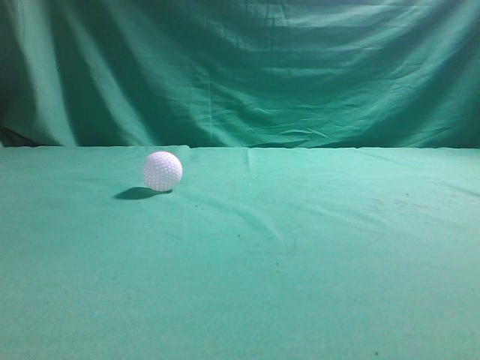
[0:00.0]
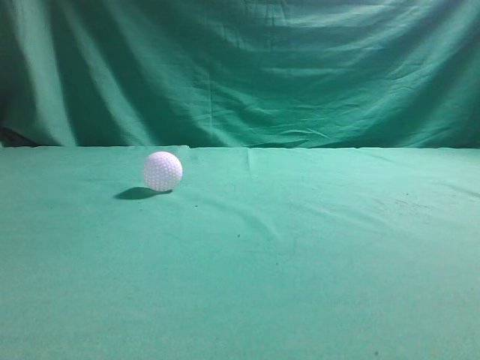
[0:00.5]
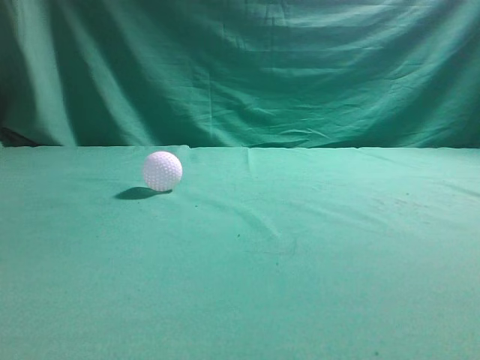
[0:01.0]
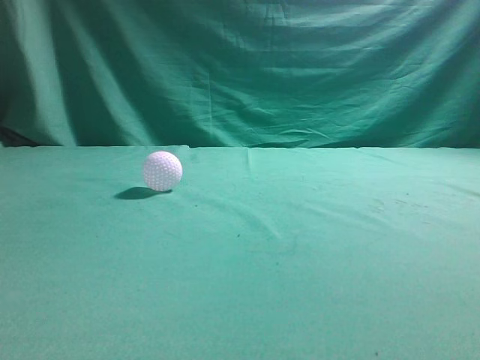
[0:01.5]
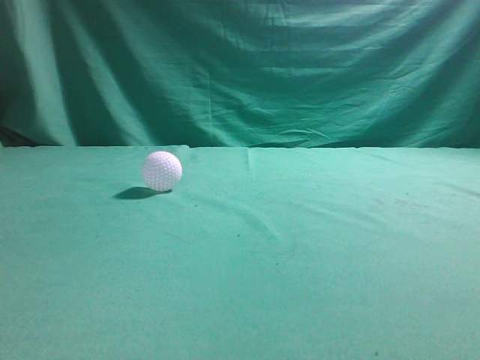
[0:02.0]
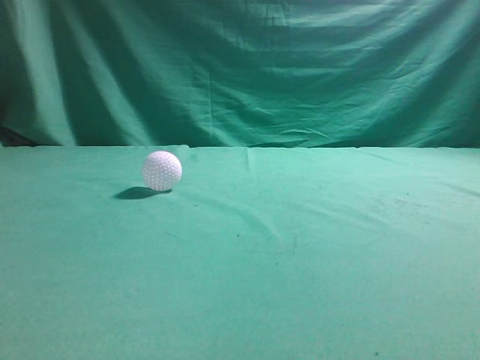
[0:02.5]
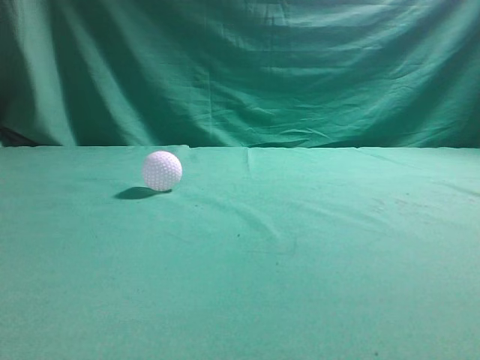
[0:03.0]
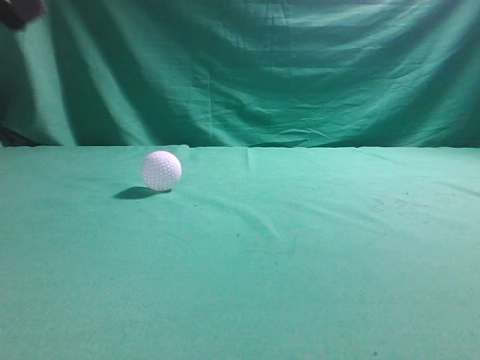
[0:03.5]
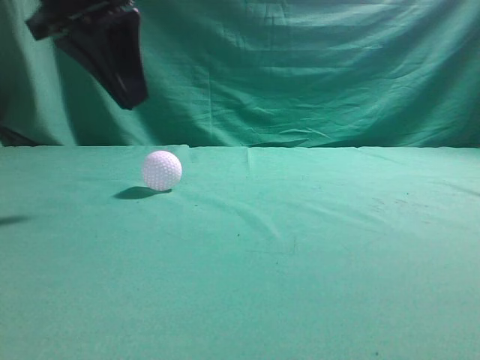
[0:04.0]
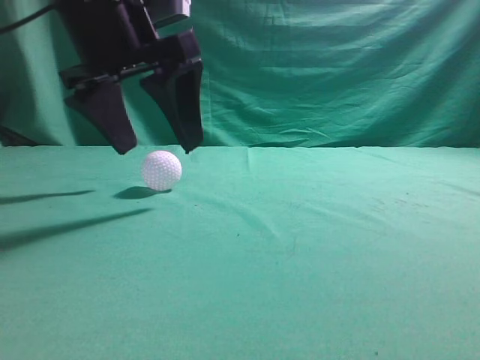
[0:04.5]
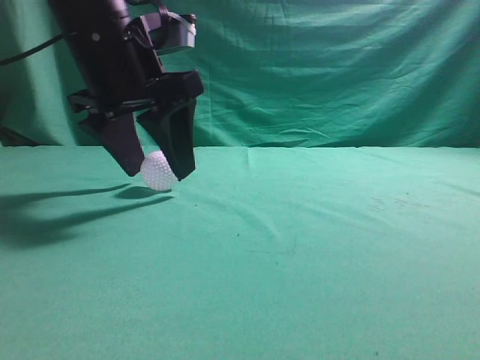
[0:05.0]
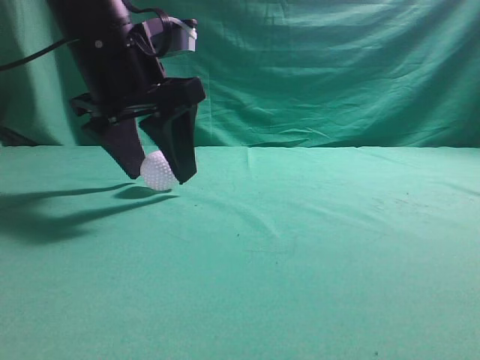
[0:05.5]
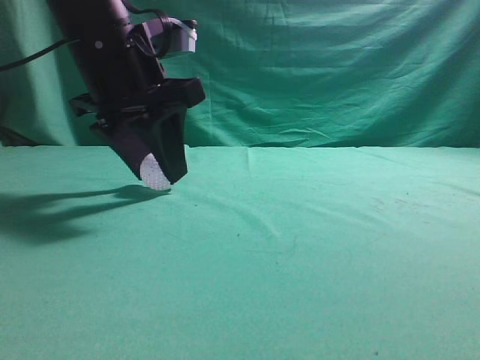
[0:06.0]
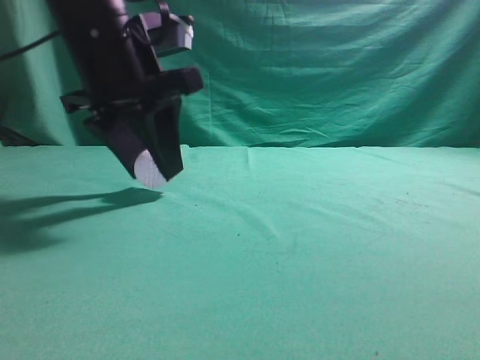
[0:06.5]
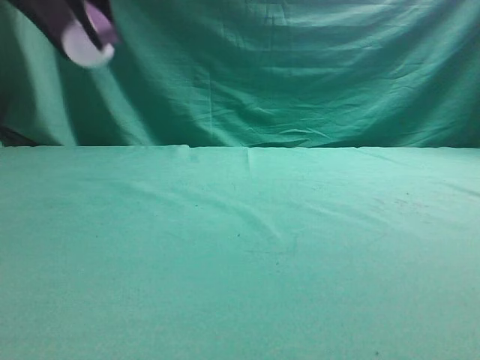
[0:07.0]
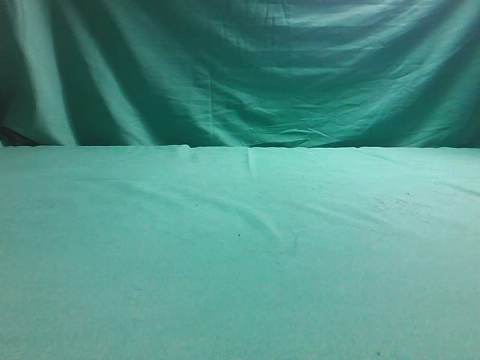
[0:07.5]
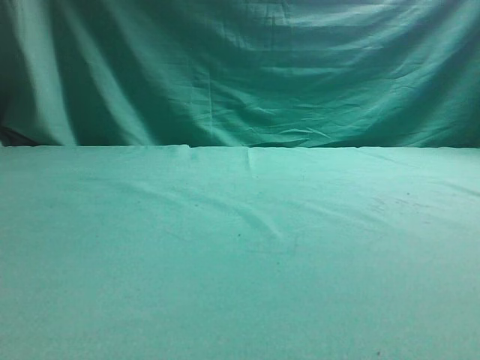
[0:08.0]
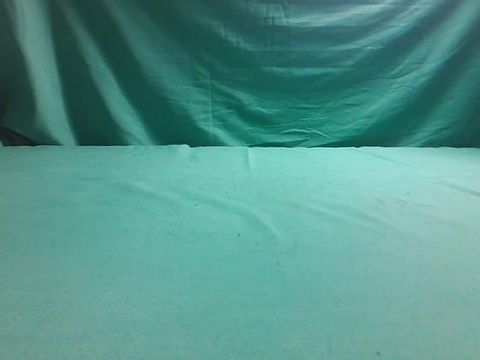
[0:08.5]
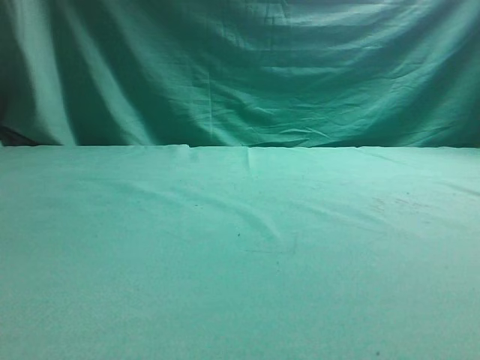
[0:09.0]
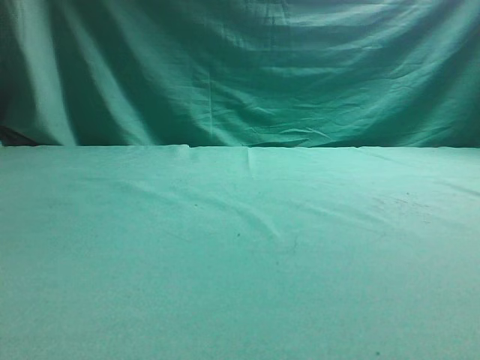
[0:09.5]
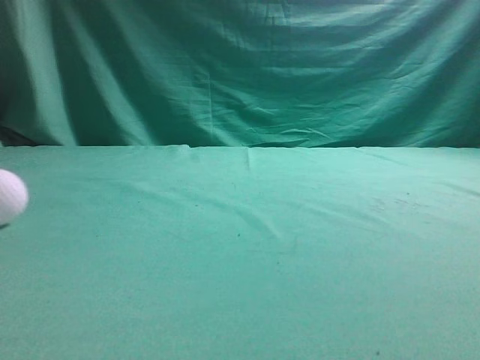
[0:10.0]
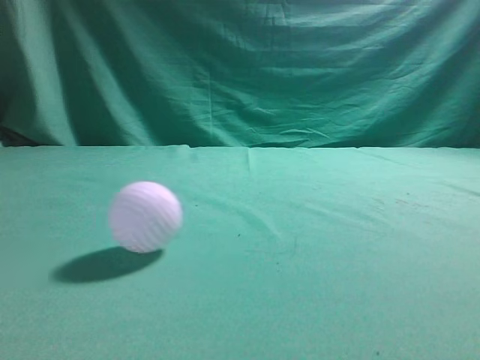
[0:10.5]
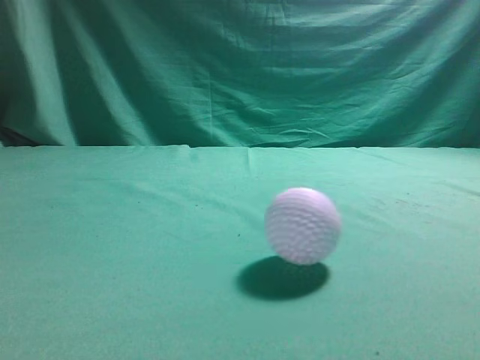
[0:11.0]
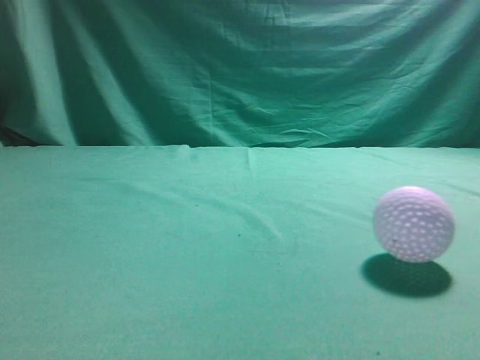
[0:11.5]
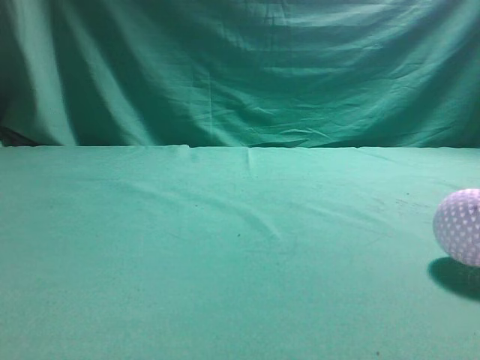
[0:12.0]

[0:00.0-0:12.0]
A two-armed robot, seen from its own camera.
Task of the whole recording: pick up the ball and place it on the plate, then pick up the ball from the plate and put it in the center of the table.
Step, 0:00.0 to 0:06.5: Grab the spherical object with your left arm.
Step, 0:07.0 to 0:09.0: Place the sphere on the white object.
0:02.0 to 0:04.0: The left gripper shifts some 30 cm forward and to the right.
0:04.0 to 0:06.0: The left gripper goes approximately 5 cm downward, and opens.
0:06.0 to 0:08.0: The right gripper shifts some 10 cm upward; the left gripper shifts approximately 25 cm to the left and upward.

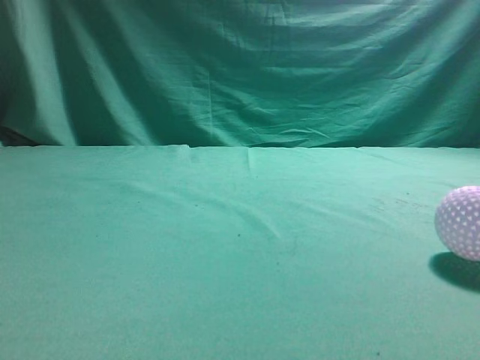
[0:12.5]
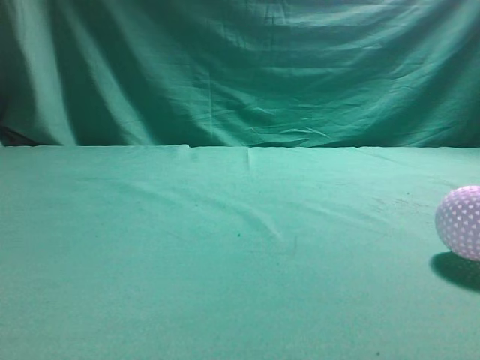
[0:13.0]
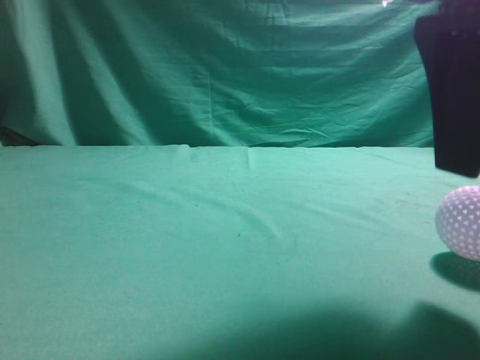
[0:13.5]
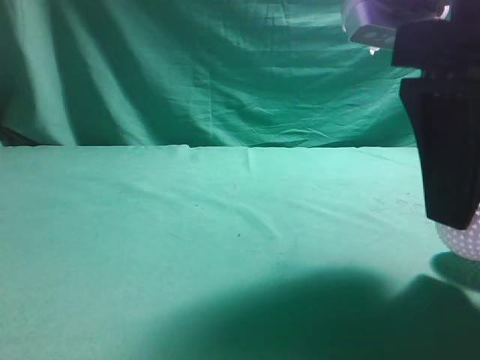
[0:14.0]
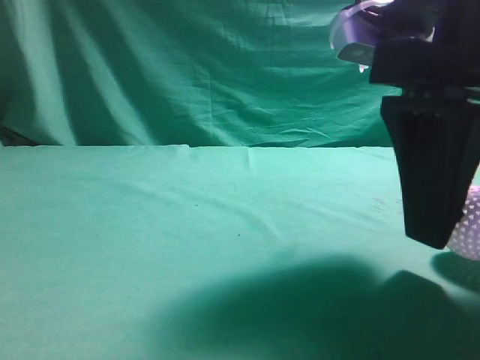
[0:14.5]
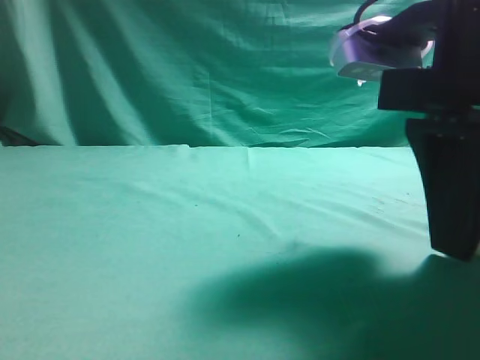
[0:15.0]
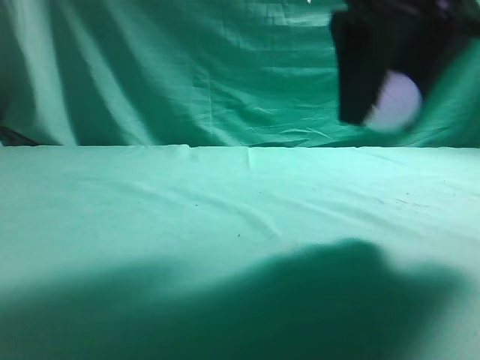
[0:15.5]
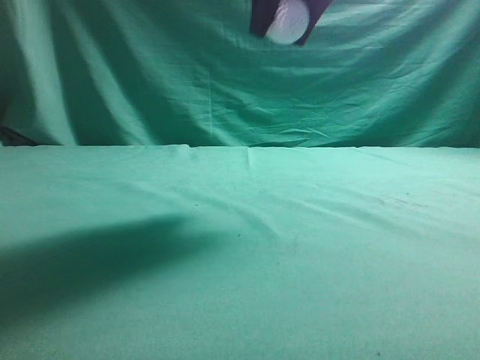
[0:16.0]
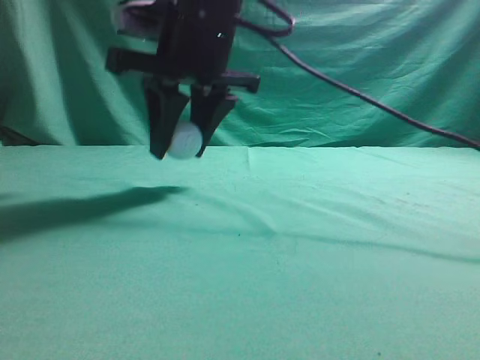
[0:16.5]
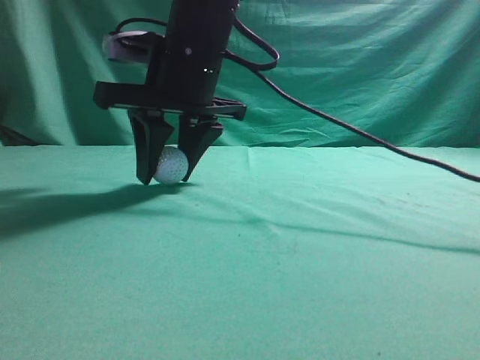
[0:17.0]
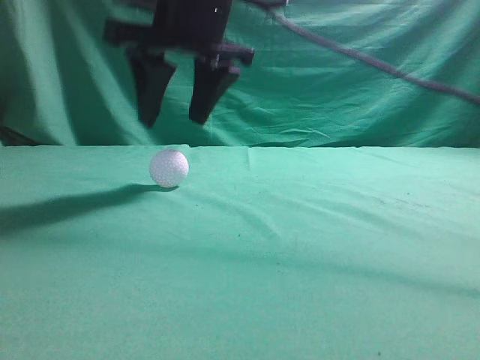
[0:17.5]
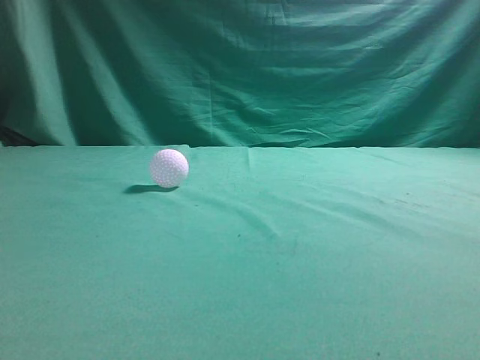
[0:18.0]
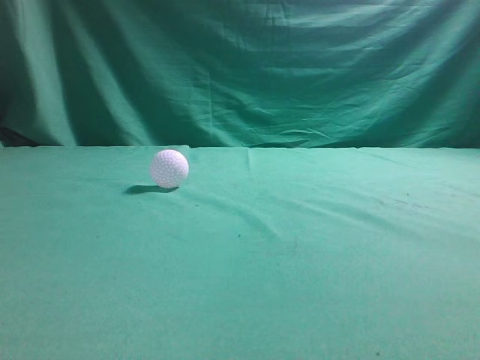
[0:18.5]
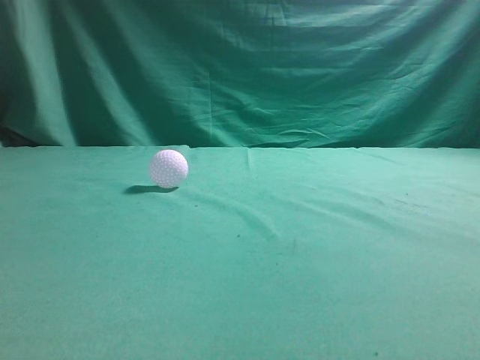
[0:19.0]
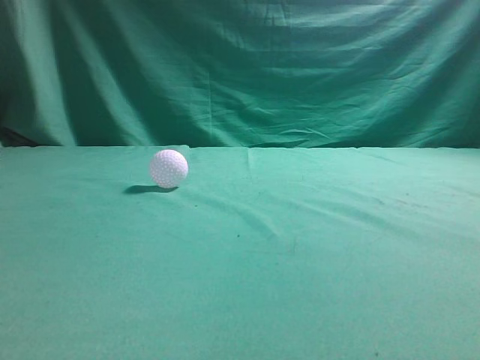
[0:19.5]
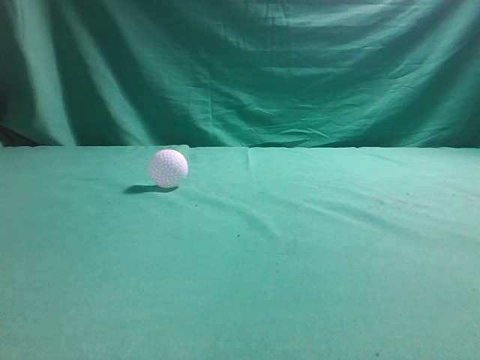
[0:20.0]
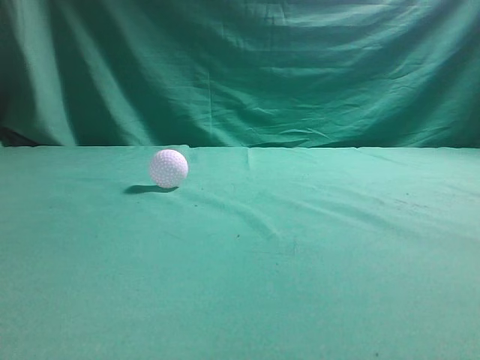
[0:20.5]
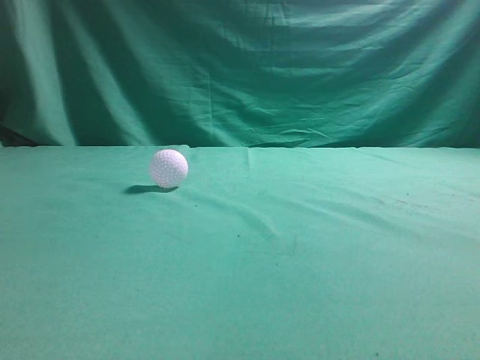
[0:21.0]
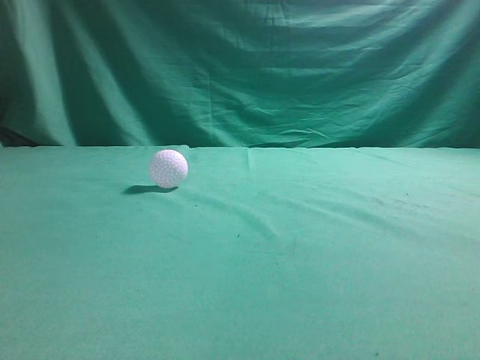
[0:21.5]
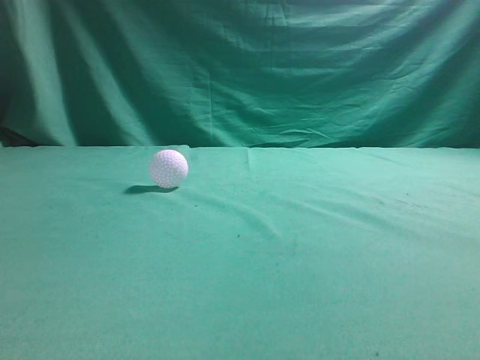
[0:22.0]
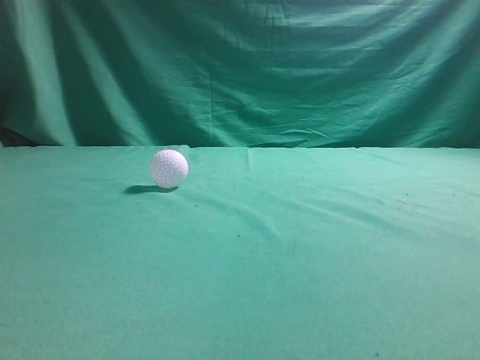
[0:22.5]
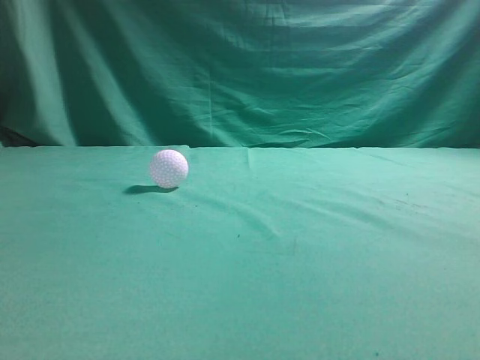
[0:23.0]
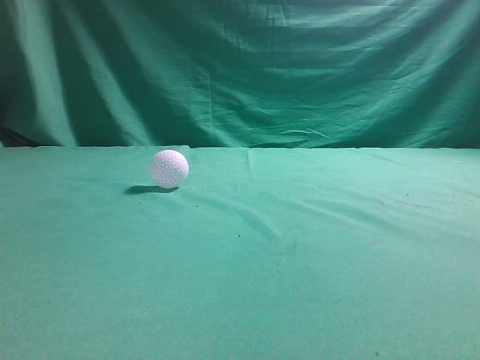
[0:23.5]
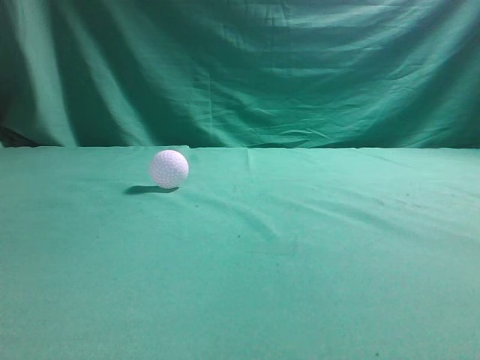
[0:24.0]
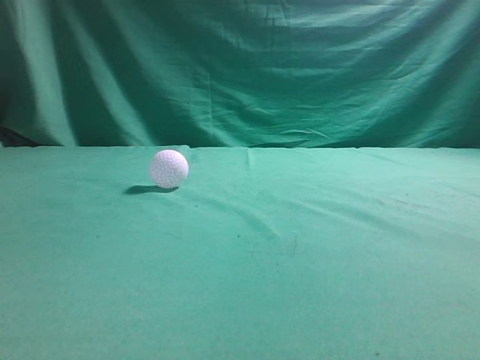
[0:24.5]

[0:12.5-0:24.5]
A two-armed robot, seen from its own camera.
Task of the whole recording: pick up the ball and place it on the plate, then pick up the ball from the plate and put it in the center of the table.
Step, 0:12.5 to 0:15.0: Grab the rolling spherical object.
Step, 0:15.5 to 0:17.5: Put the picked-up object on the table.
0:12.5 to 0:14.5: The right gripper travels downward, to the left and forward by approximately 15 cm, and opens its fingers.
0:14.5 to 0:16.5: The right gripper travels to the left and forward by approximately 20 cm, and closes up.
0:16.5 to 0:18.5: The right gripper travels upward, backward and to the right by roughly 35 cm, and closes up. Meanwhile the left gripper shifts approximately 10 cm backward.
